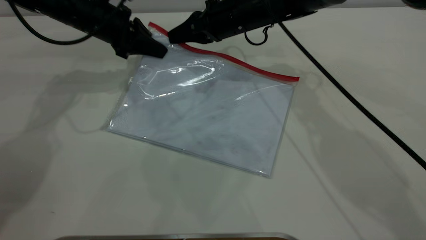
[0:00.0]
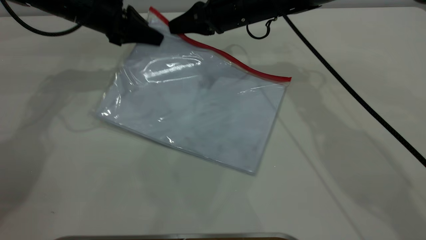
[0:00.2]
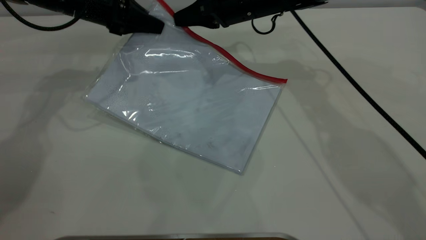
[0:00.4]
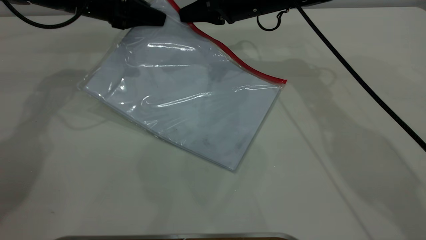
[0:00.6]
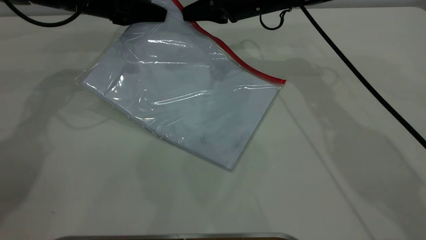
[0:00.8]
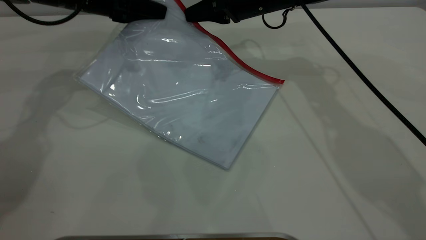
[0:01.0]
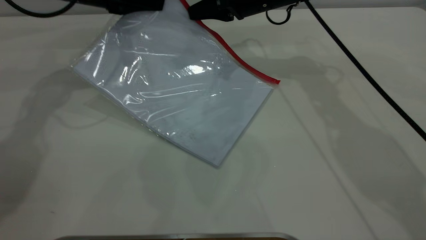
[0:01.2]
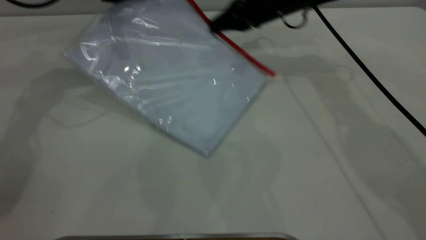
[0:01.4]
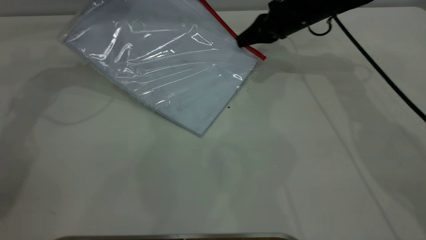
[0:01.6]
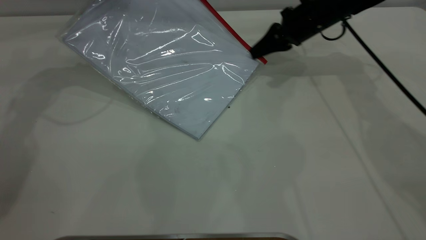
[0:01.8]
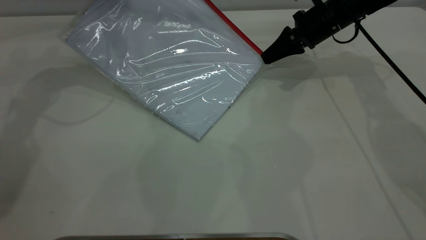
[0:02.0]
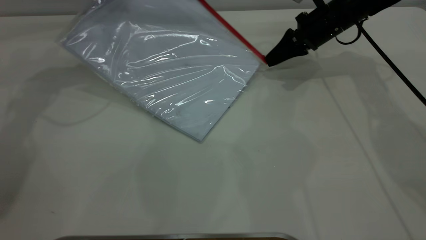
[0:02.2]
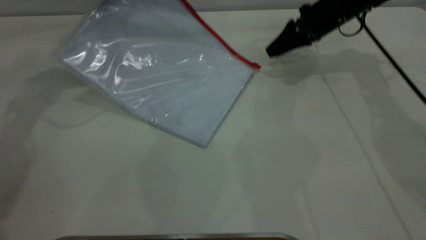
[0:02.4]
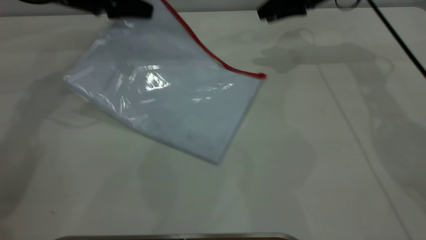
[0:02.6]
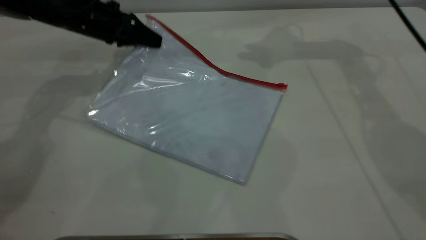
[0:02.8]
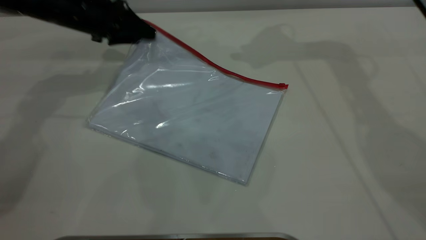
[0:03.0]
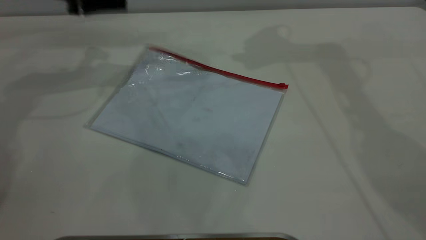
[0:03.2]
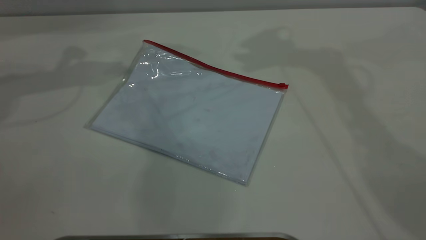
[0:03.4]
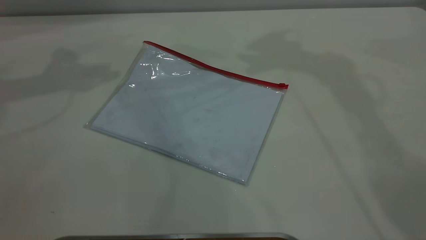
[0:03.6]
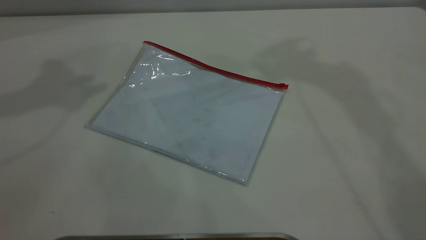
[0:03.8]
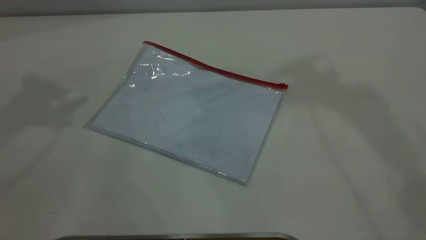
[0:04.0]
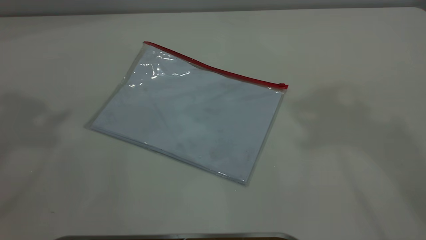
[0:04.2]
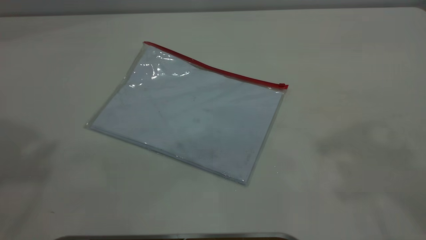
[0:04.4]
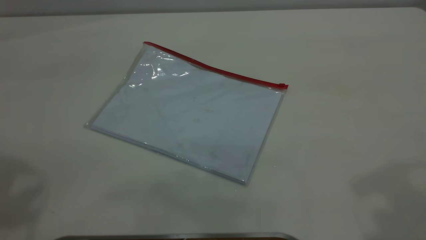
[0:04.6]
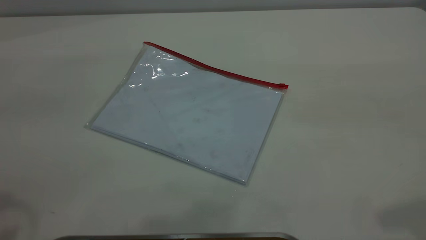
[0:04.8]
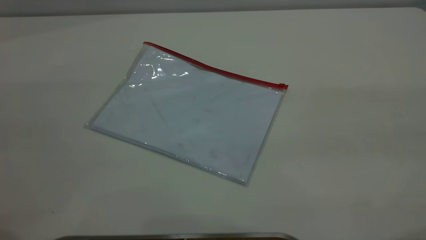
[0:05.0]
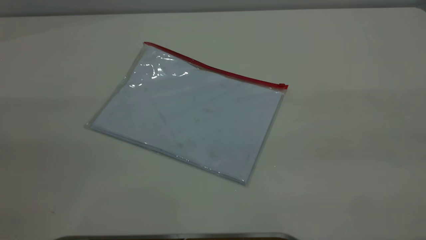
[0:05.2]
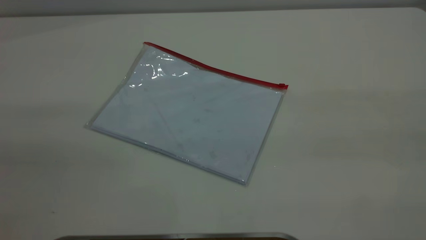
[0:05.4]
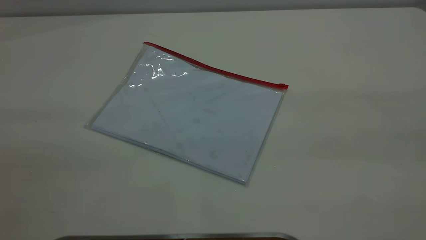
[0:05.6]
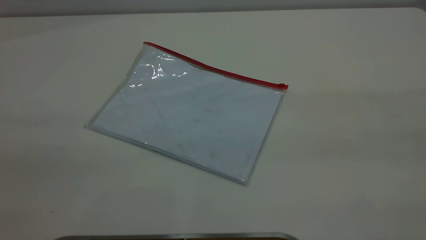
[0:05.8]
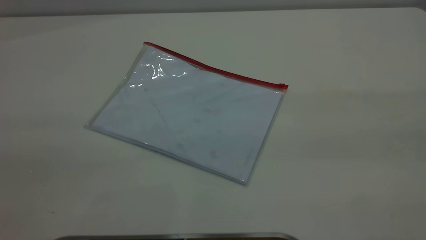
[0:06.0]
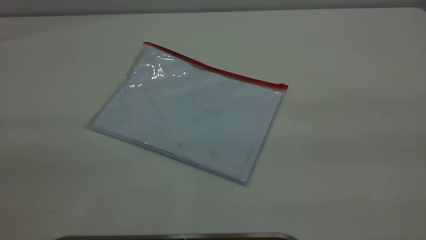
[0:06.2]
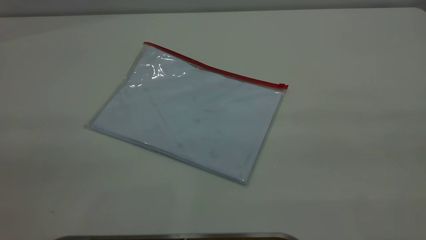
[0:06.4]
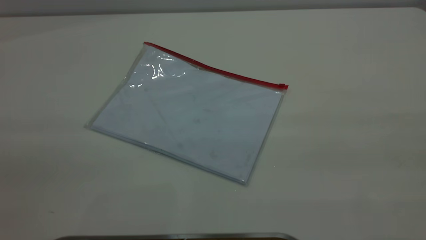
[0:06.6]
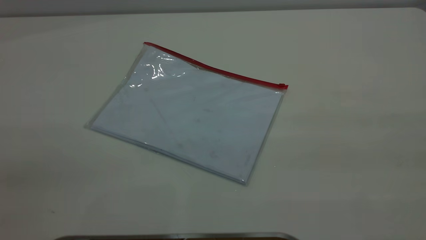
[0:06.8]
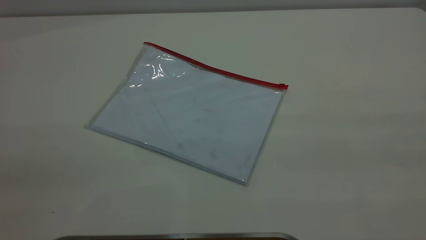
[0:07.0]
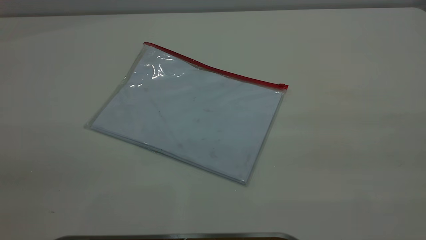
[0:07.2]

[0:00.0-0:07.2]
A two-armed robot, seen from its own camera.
Step, 0:00.0 to 0:02.2: Pulling up the zipper on the transparent plastic bag with the right gripper to close it.
Step, 0:02.4 to 0:03.0: Place the transparent plastic bag.
0:00.0 to 0:01.4: The right gripper moves to the right, some 10 cm. The left gripper travels upward by approximately 5 cm.
0:01.4 to 0:02.8: The left gripper travels downward by about 10 cm. The right gripper heads upward, covering approximately 10 cm, and opens up.
0:02.8 to 0:04.4: The right gripper moves backward and upward, approximately 40 cm. The left gripper is displaced upward and backward by approximately 40 cm, and opens up.
